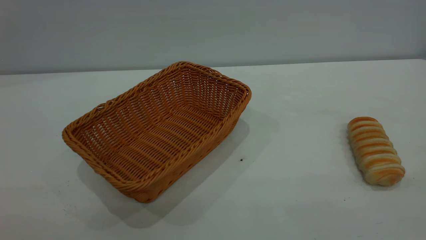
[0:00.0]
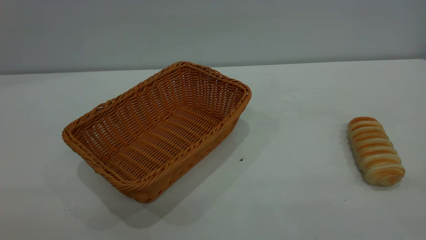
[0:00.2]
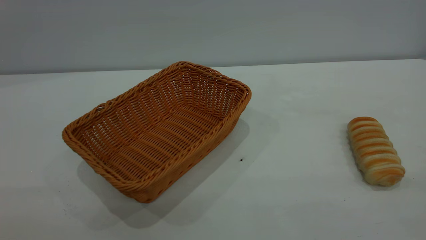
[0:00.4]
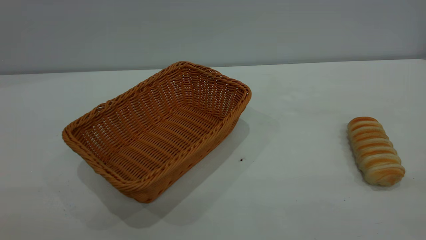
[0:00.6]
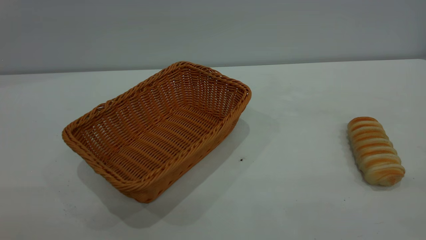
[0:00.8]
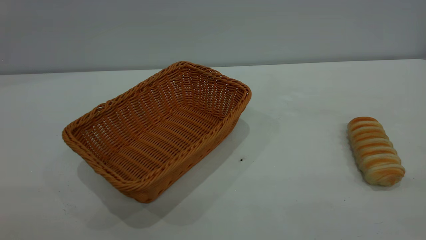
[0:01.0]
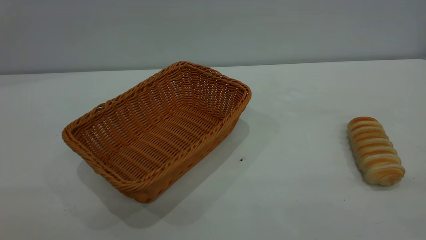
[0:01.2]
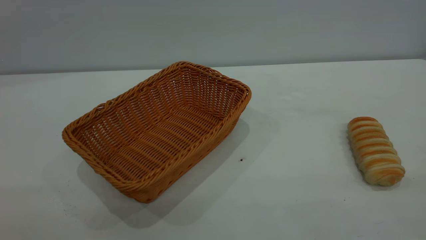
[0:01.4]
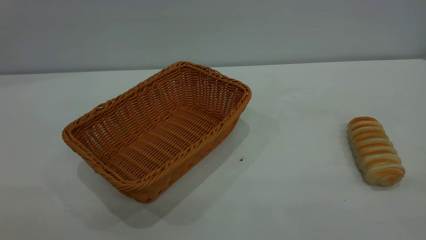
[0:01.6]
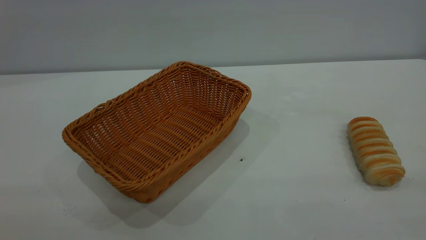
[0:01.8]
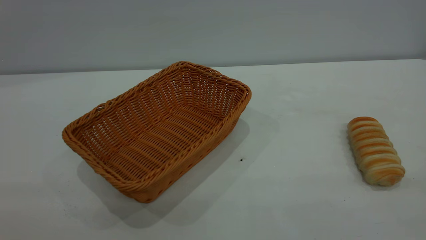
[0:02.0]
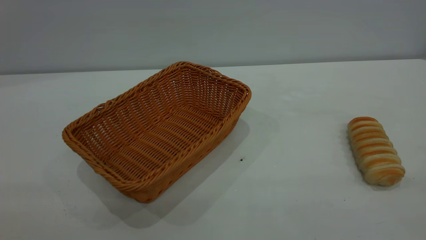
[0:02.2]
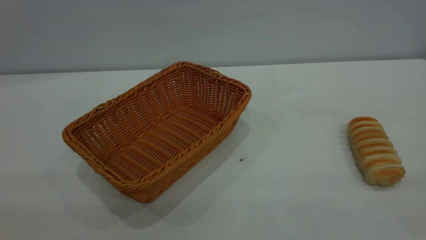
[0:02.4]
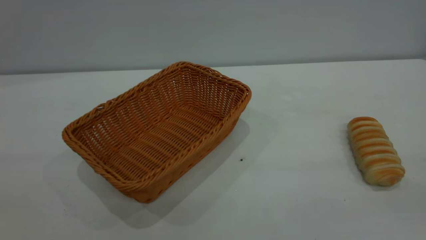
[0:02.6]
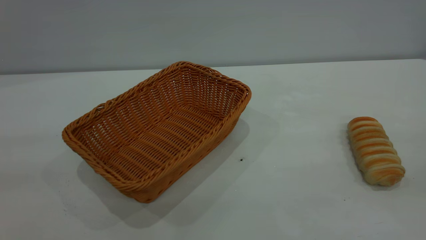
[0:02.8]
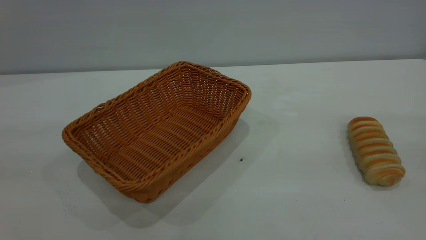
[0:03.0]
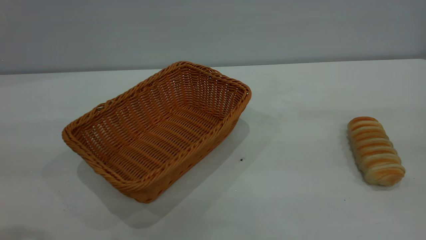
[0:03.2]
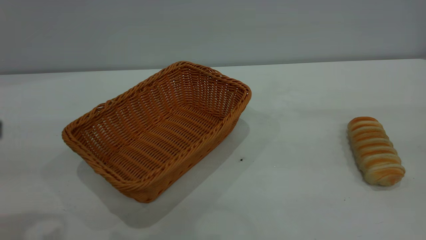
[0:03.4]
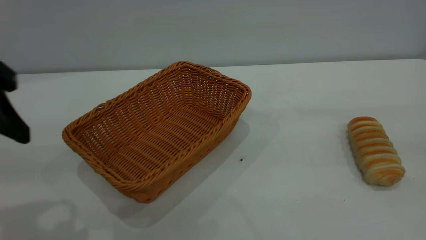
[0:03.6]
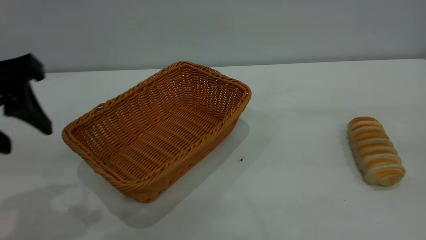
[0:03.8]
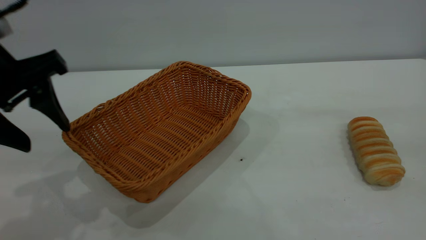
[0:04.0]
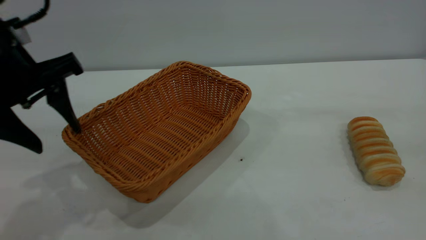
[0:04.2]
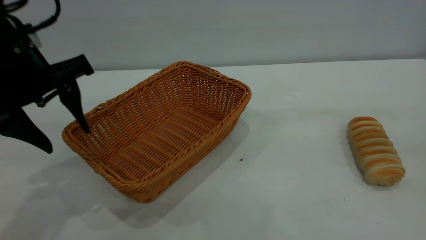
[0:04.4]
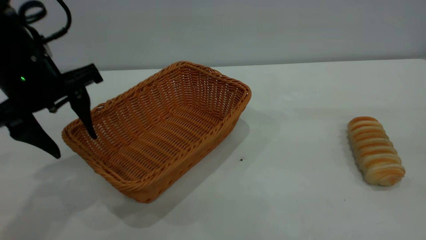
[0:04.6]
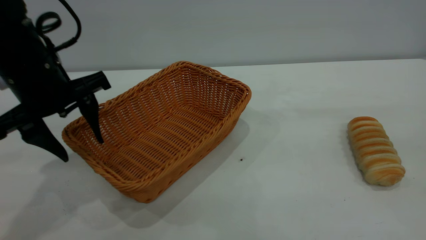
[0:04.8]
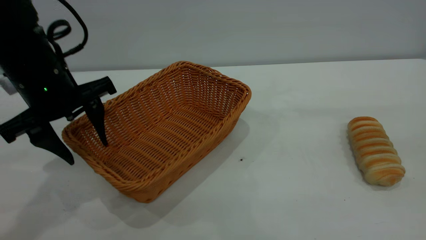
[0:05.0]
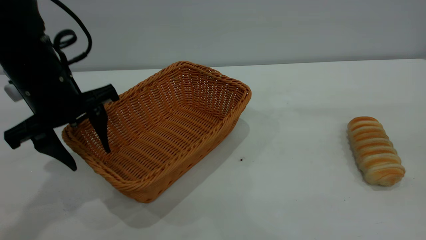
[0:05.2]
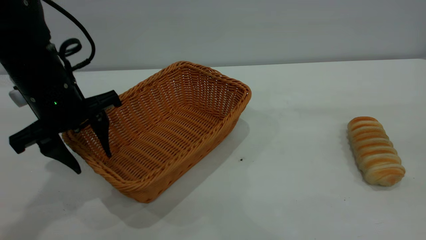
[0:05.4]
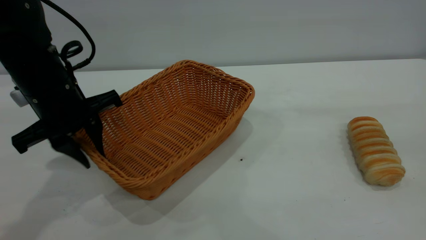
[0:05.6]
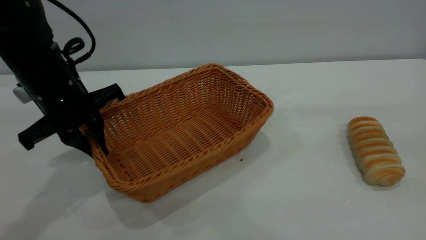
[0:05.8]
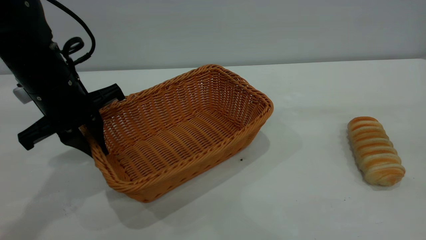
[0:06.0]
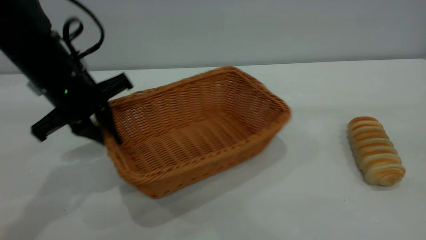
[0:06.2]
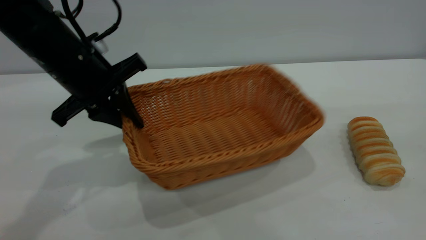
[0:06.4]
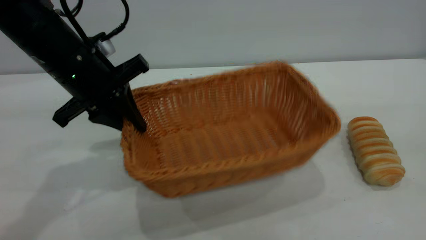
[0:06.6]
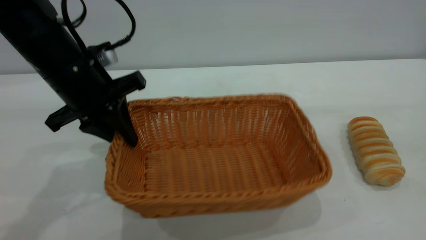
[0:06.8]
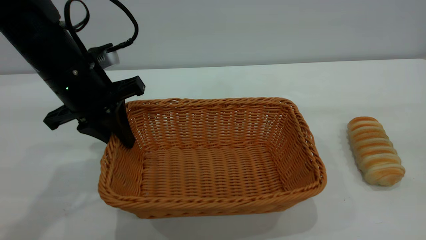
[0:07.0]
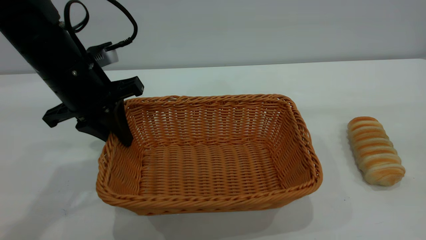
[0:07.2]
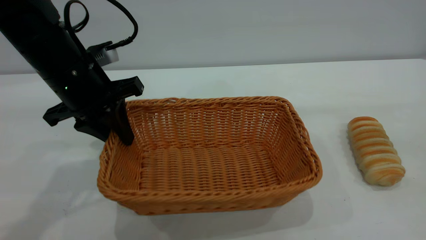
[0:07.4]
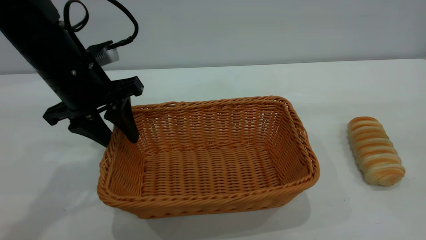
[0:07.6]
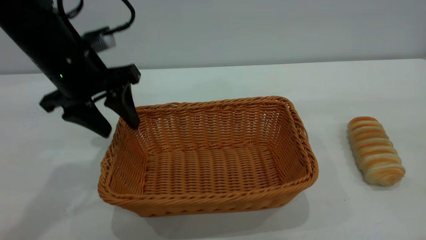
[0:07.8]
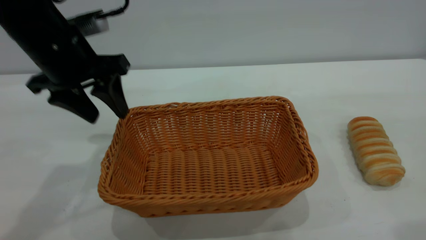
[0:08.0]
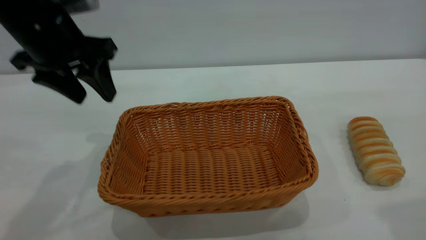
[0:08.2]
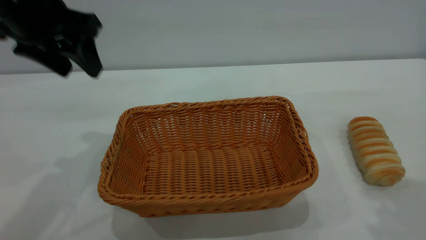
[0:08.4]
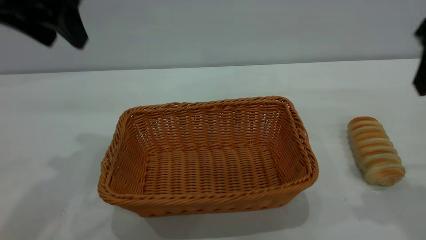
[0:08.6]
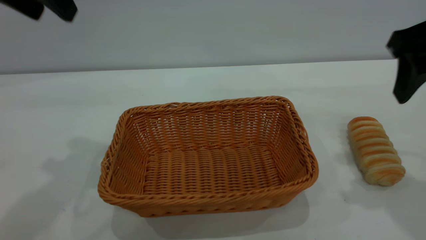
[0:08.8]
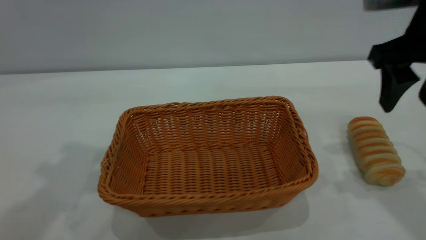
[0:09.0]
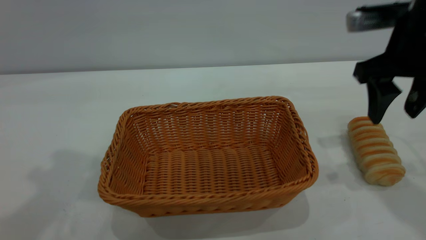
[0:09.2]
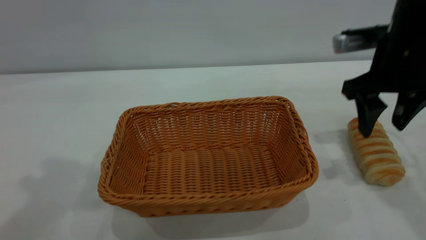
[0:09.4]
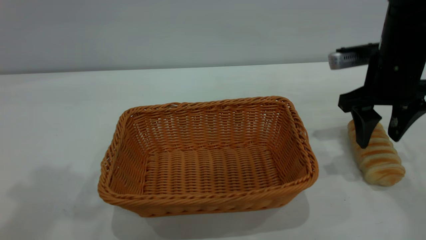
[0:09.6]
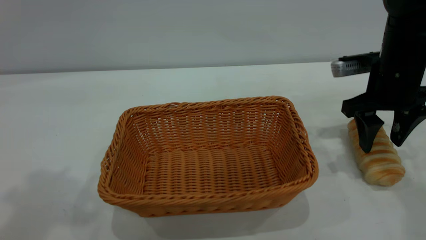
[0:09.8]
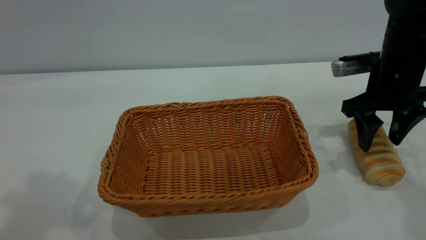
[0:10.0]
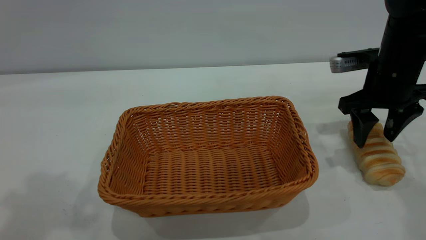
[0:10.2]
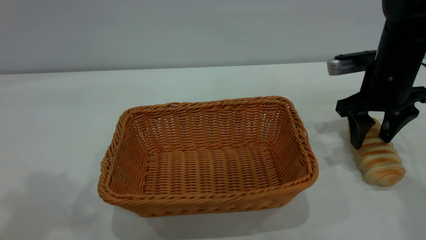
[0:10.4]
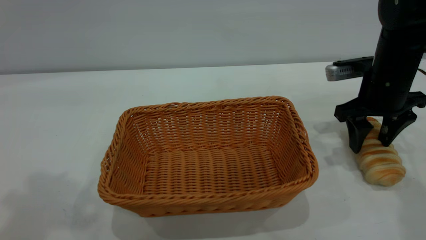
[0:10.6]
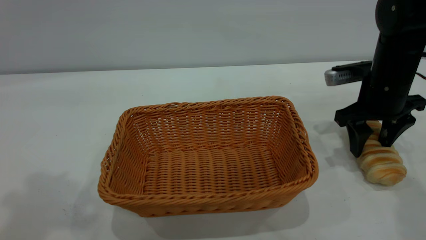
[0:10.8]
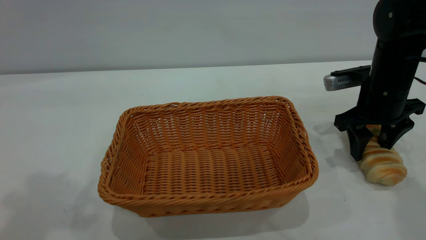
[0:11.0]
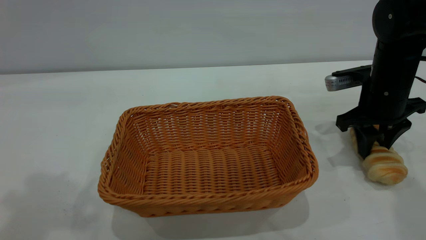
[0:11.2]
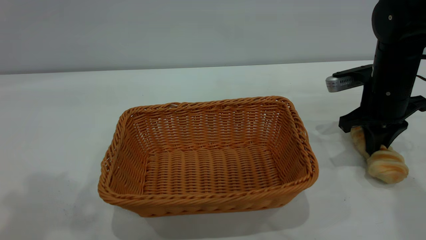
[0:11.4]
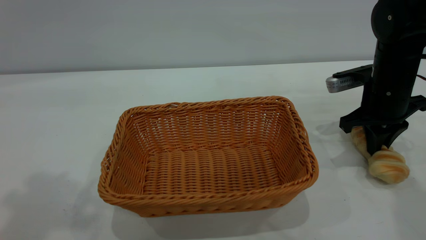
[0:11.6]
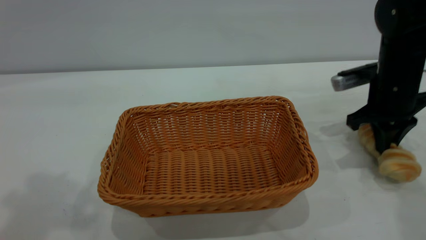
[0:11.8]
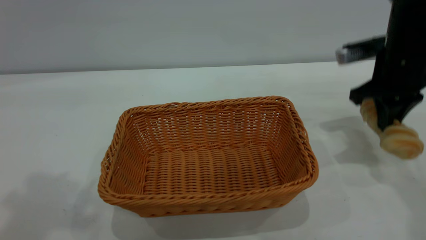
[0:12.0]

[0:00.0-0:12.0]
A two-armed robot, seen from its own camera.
Task of the whole recording: One hand grasps the yellow basket and places it in the middle of the table, while the other hand picks up the long bread and puts it into the yellow basket.
Step, 0.0 to 8.2 s: Move the basket to the center of view.
0.0 to 1.6 s: The two grippers keep their place.
3.0 to 4.4 s: The left gripper heads forward and downward, covering approximately 20 cm.
4.4 to 6.0 s: The left gripper travels downward by approximately 5 cm, and closes up.
6.0 to 7.6 s: The left gripper opens its fingers.
7.6 to 9.0 s: The left gripper heads upward, covering about 20 cm, while the right gripper moves forward and downward, some 25 cm.
9.0 to 10.4 s: The left gripper shifts about 10 cm upward and backward; the right gripper travels downward and forward by approximately 15 cm.
10.4 to 12.0 s: The right gripper closes its fingers.

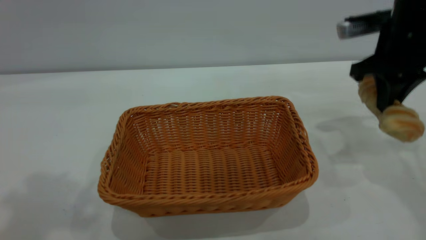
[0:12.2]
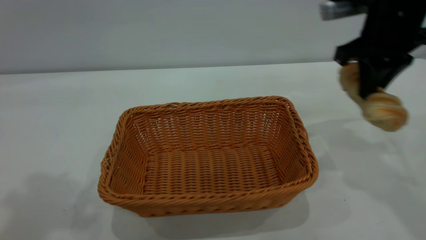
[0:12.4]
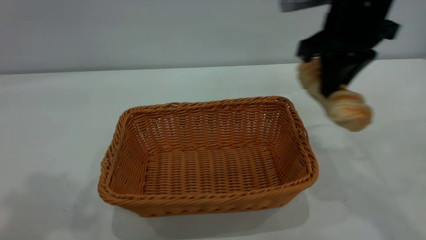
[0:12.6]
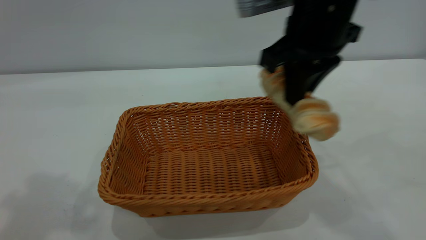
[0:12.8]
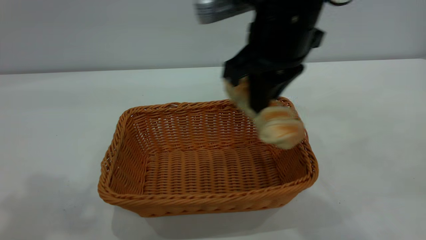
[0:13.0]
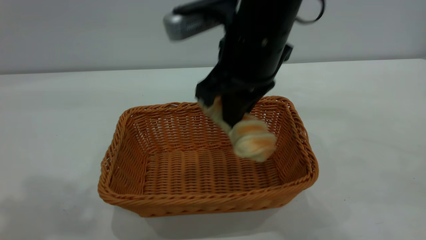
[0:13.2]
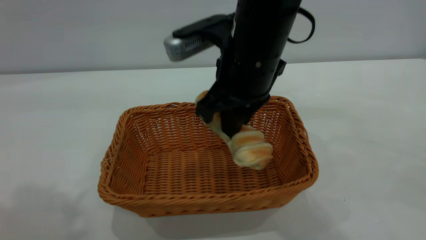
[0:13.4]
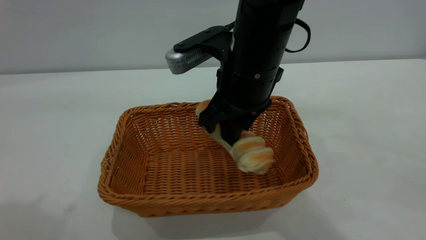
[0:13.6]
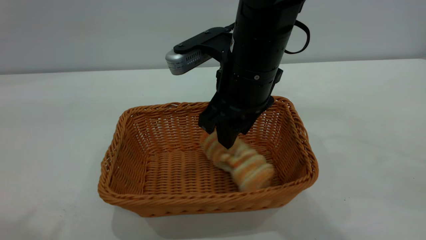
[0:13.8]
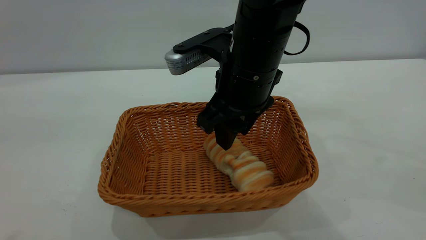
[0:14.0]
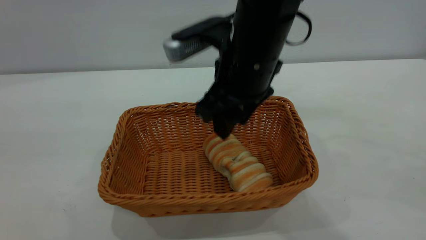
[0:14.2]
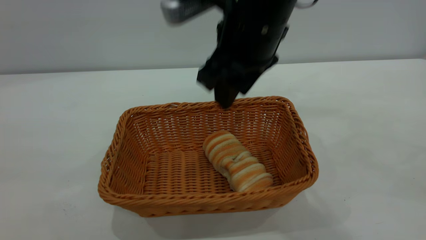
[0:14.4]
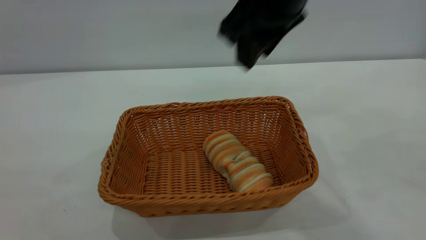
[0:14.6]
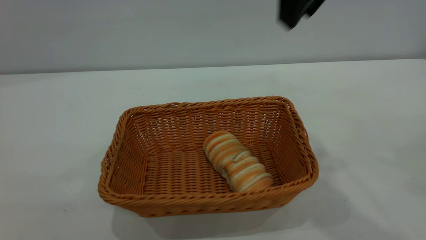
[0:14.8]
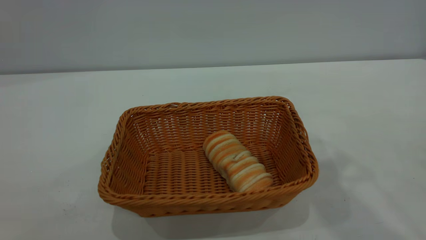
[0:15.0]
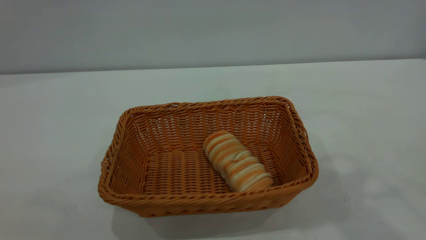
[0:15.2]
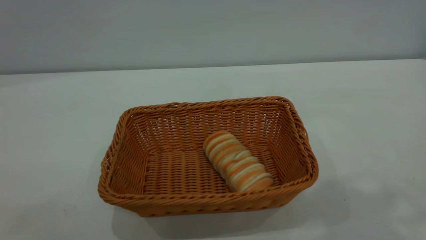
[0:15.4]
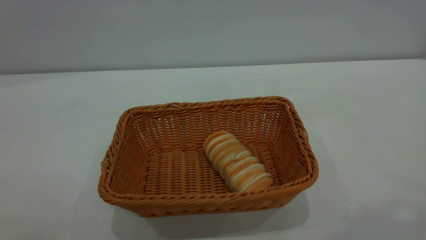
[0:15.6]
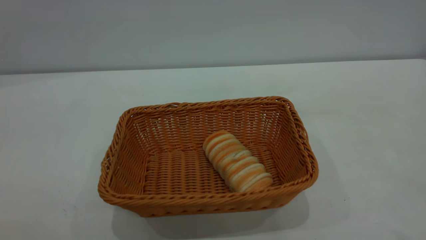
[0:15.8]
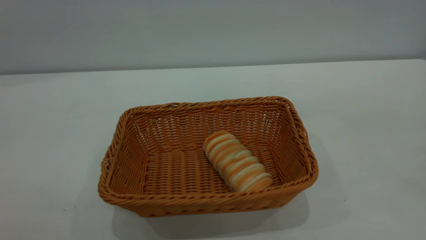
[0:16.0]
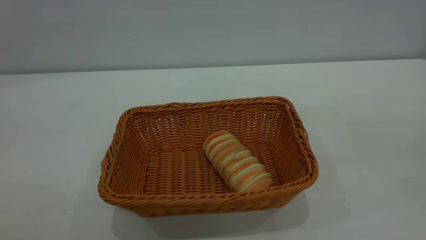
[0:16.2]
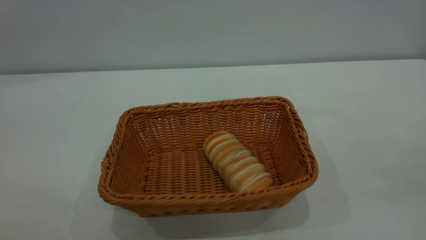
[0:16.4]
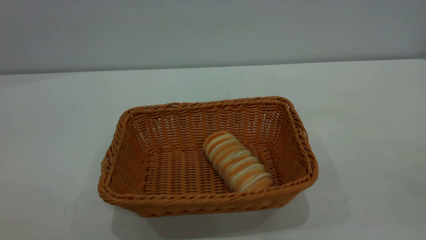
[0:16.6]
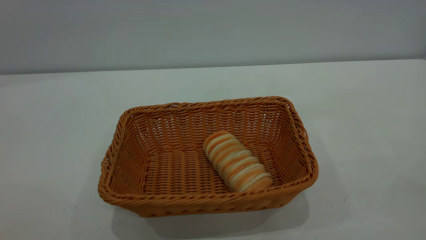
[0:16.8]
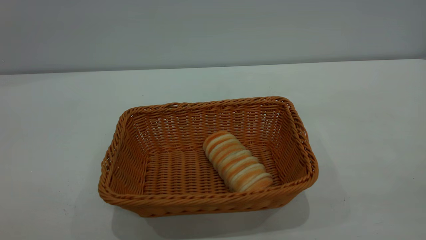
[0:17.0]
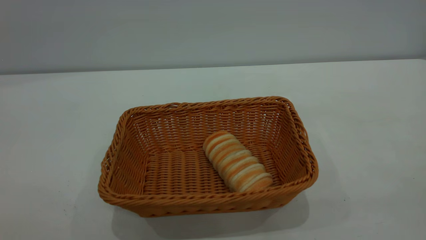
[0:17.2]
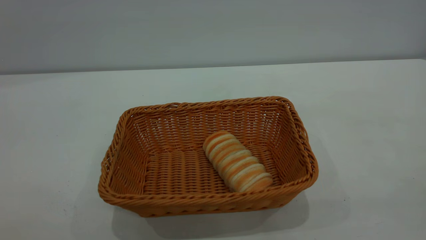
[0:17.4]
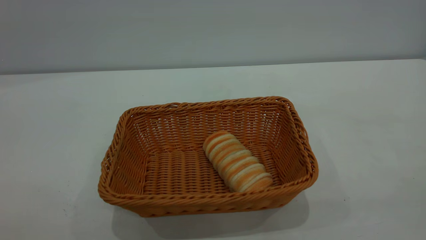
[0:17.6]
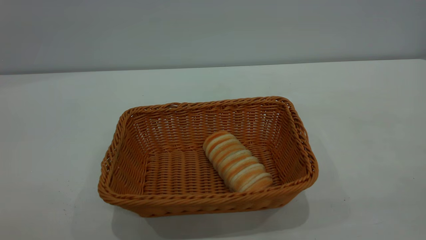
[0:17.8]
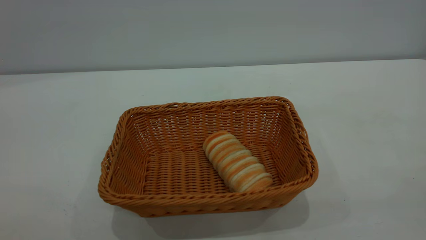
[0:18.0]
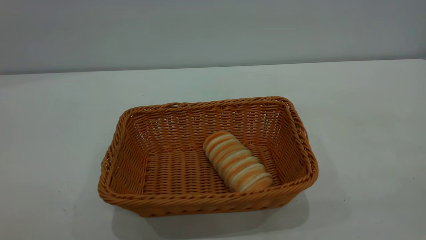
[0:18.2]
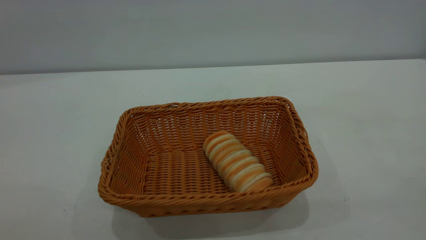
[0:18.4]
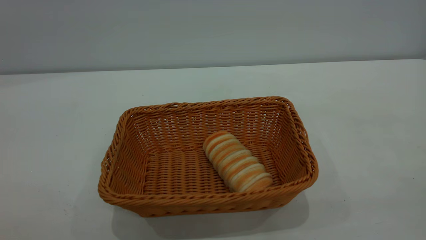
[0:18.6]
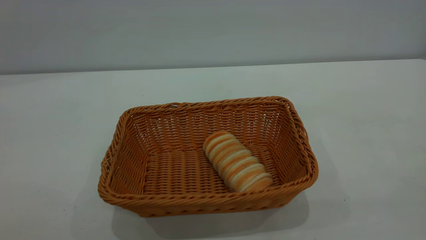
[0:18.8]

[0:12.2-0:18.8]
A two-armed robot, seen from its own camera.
Task of the whole recording: One hand grasps the yellow basket and places it in the middle of the table, while the other hand picks up the long bread and puts it into the yellow basket.
Step, 12.2 to 14.6 s: place the bread into the basket.
12.2 to 13.8 s: The left gripper heads backward, covering some 10 cm, while the right gripper heads to the left, covering about 20 cm, and opens its fingers.
13.8 to 15.4 s: The left gripper goes some 20 cm backward and downward; the right gripper shifts roughly 30 cm upward and to the right.
17.2 to 18.8 s: Both grippers stay put.
